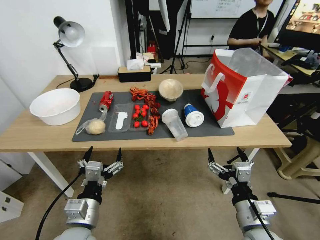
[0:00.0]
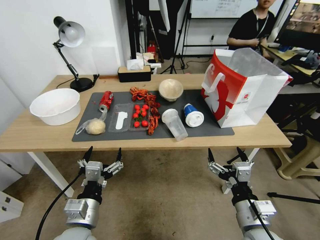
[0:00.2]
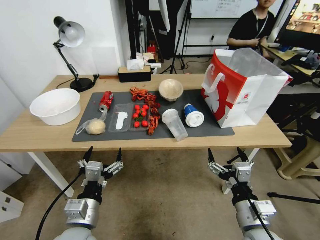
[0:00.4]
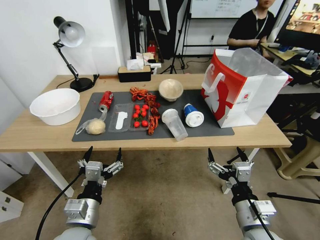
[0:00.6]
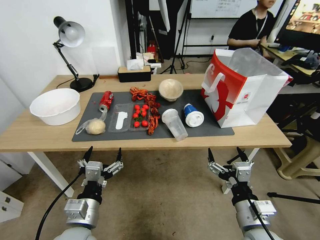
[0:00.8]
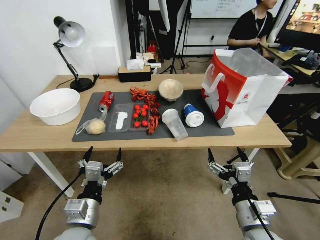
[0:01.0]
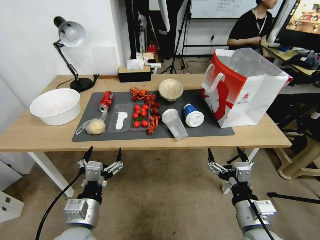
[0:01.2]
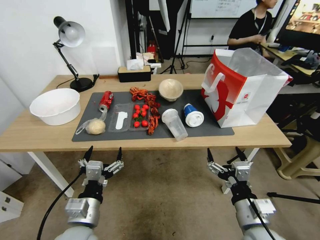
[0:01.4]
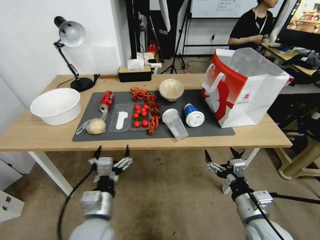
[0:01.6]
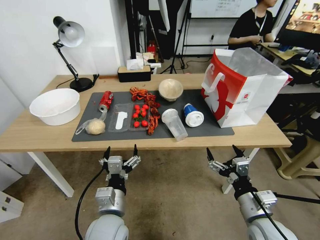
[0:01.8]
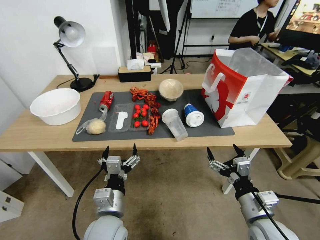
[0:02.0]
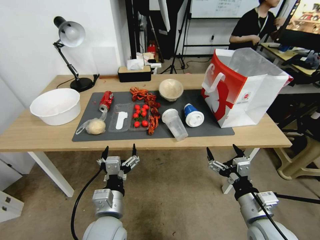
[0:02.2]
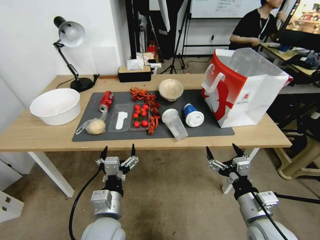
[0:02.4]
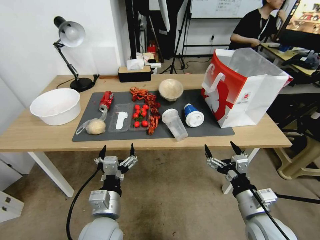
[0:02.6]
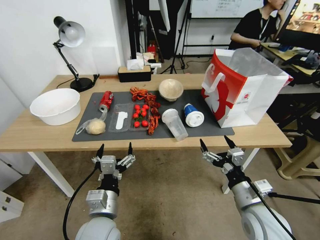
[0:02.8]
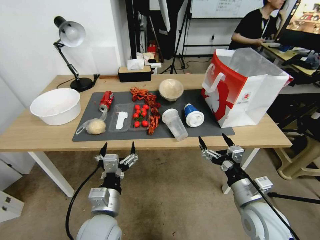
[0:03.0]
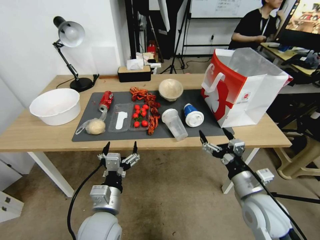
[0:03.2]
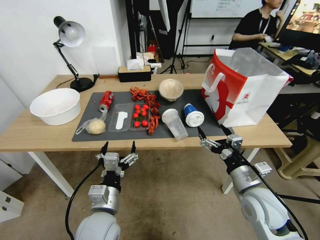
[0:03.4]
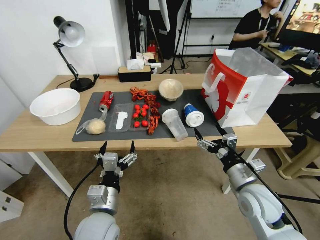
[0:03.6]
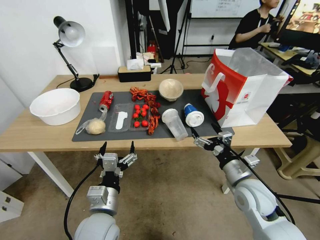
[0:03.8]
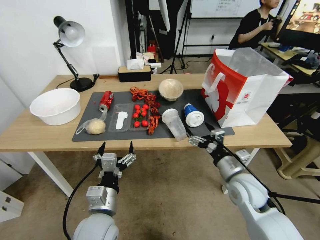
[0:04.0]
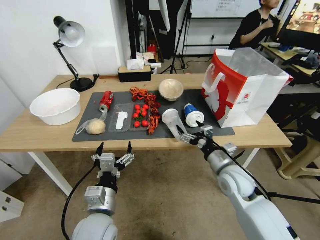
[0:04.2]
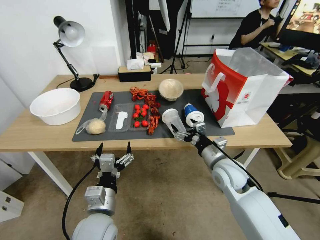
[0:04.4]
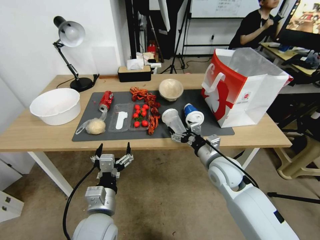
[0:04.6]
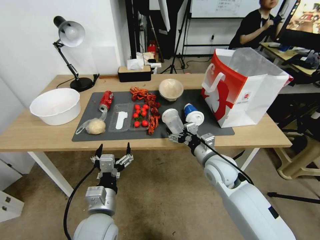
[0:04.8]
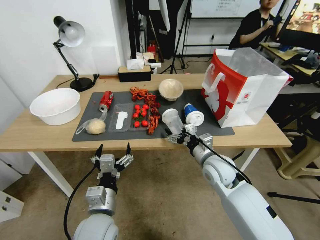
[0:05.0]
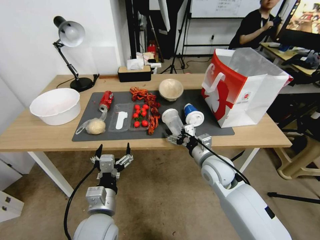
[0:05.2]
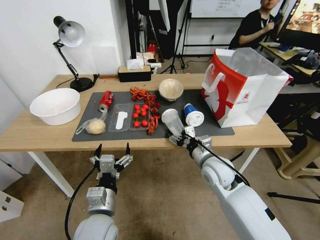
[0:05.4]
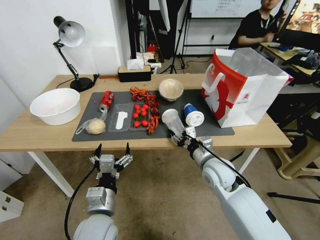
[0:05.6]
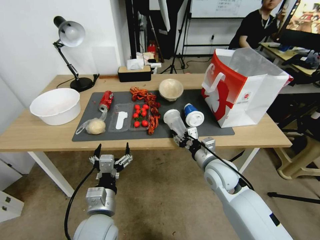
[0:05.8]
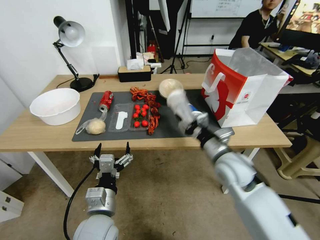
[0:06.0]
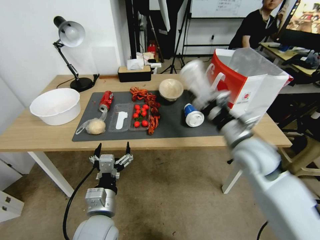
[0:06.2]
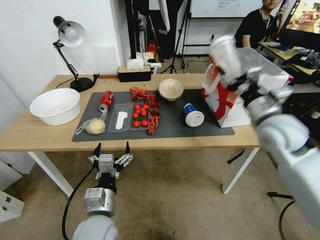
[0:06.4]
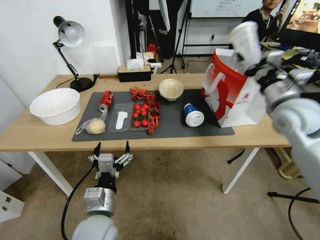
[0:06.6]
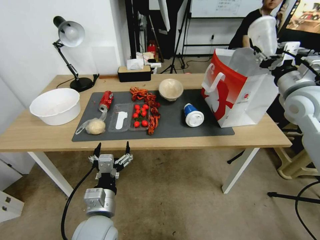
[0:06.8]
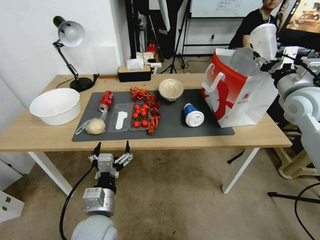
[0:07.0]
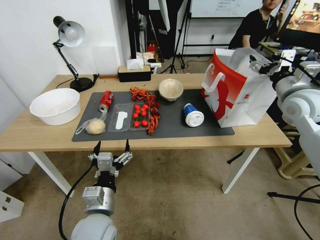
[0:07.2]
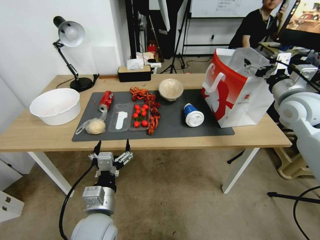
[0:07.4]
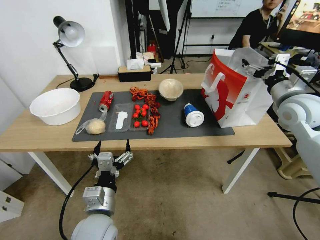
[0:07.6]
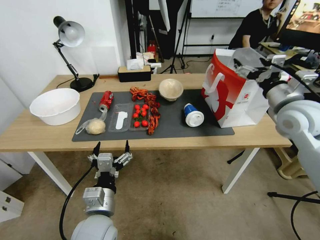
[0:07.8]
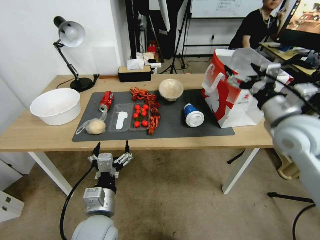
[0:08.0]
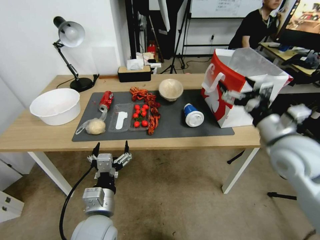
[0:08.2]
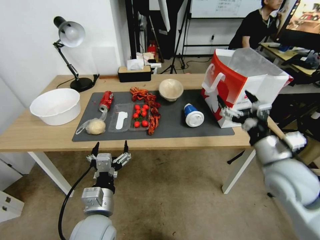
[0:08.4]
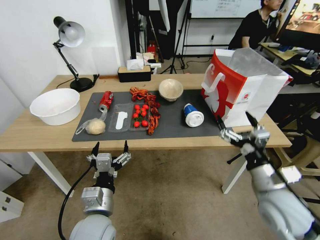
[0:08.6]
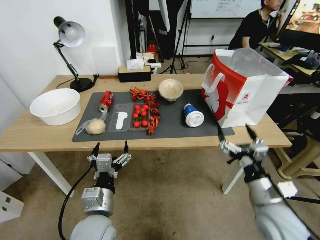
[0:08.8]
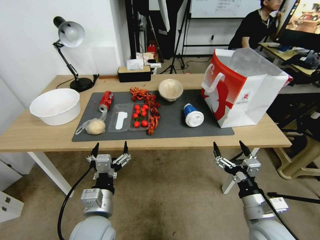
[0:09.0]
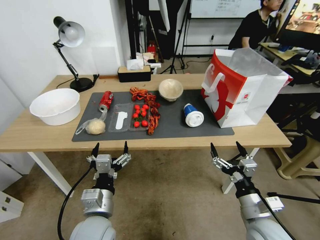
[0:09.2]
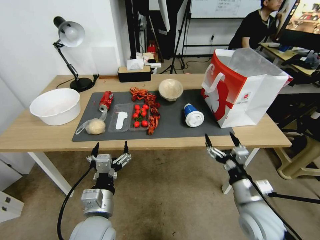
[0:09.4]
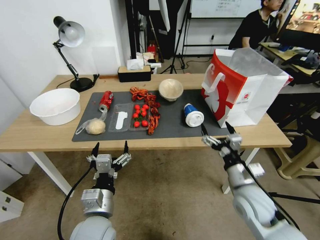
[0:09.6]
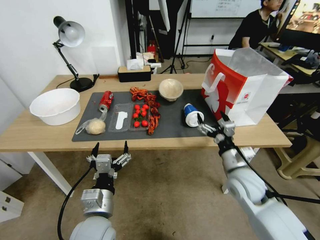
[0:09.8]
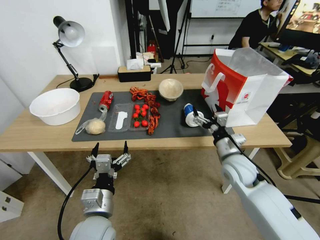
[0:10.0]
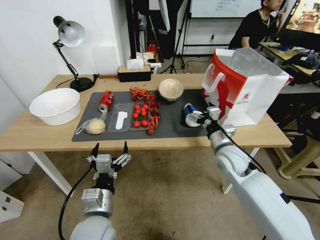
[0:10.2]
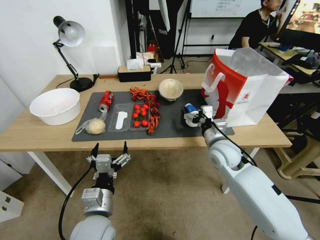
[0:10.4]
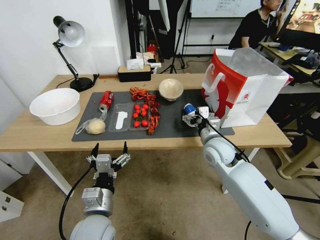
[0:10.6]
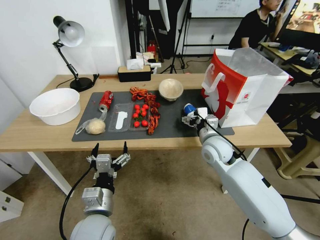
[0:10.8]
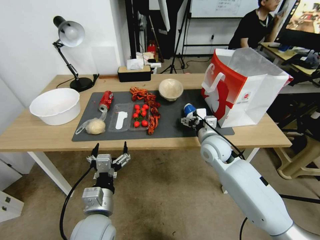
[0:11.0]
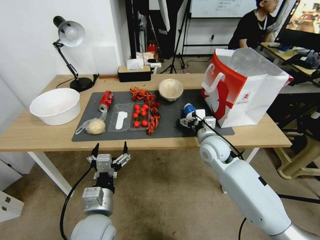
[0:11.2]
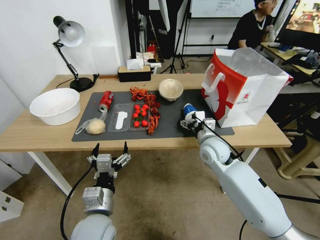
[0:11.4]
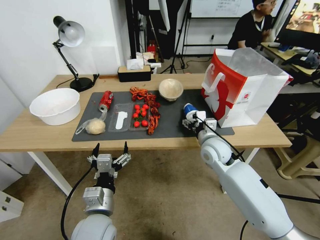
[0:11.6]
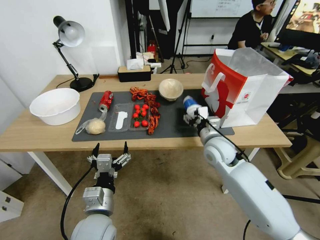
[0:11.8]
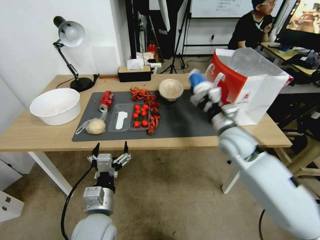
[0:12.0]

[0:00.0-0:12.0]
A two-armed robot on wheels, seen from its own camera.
0:01.6 to 0:03.0: There are only small adjustments of the grippers.
0:03.0 to 0:04.4: The right gripper travels forward by some 15 cm.
0:04.4 to 0:06.0: The right gripper closes its fingers.
0:06.0 to 0:07.6: The right gripper heads to the right, upward and forward, covering about 25 cm, and opens up.
0:07.6 to 0:09.0: The right gripper shifts about 35 cm backward, downward and to the left.
0:09.0 to 0:10.4: The right gripper travels forward by roughly 20 cm.
0:10.4 to 0:12.0: The right gripper shifts roughly 5 cm upward.

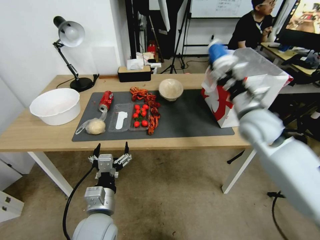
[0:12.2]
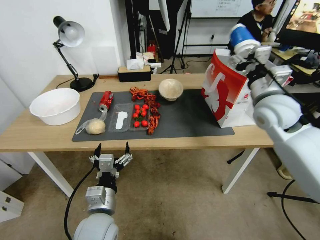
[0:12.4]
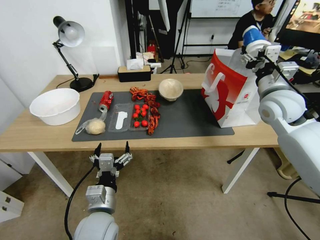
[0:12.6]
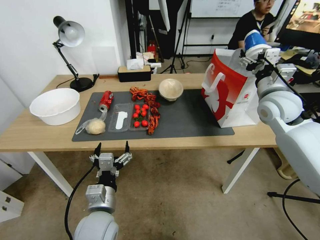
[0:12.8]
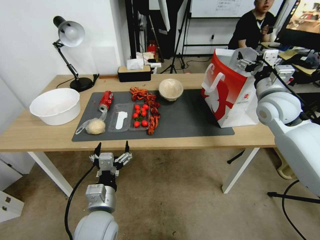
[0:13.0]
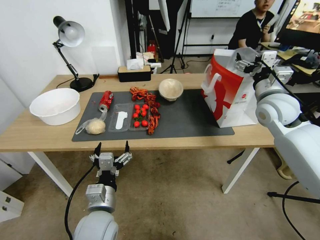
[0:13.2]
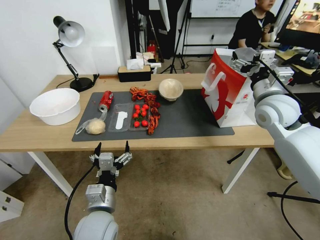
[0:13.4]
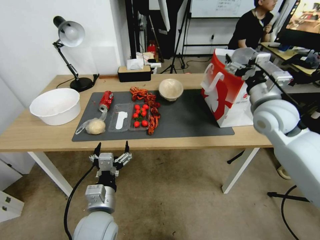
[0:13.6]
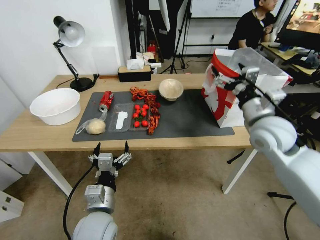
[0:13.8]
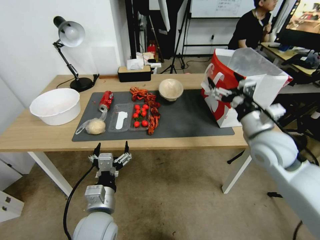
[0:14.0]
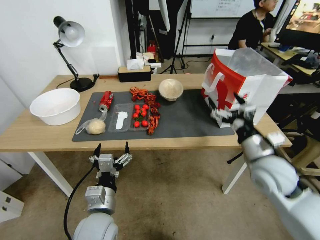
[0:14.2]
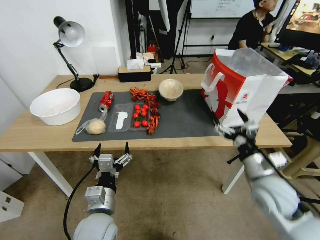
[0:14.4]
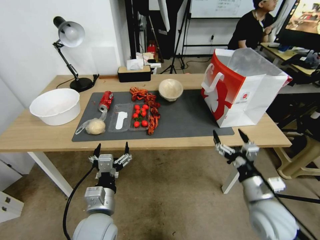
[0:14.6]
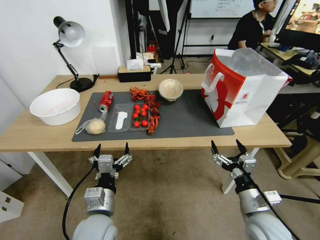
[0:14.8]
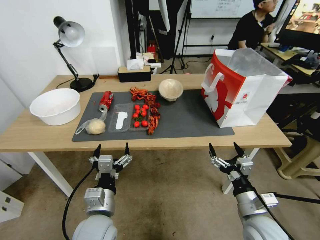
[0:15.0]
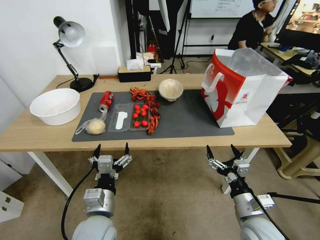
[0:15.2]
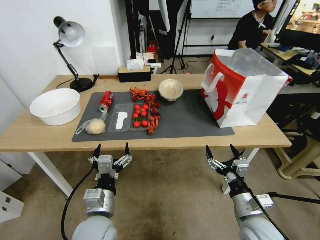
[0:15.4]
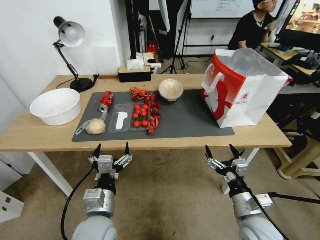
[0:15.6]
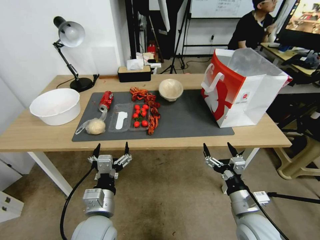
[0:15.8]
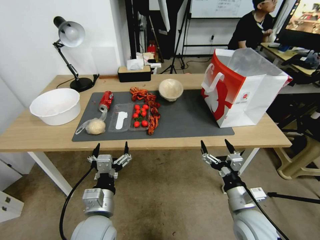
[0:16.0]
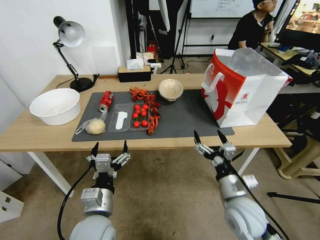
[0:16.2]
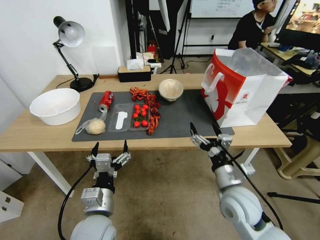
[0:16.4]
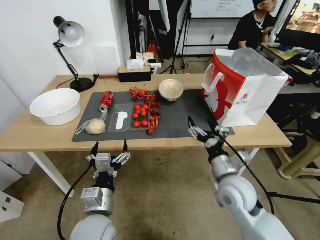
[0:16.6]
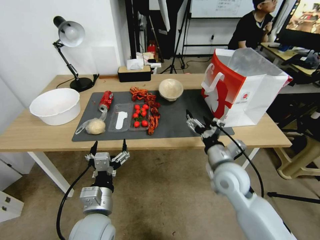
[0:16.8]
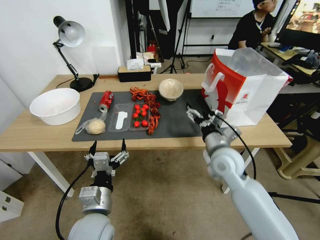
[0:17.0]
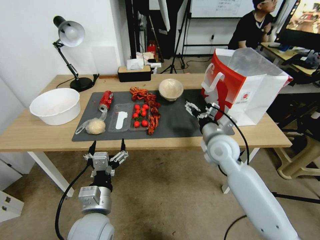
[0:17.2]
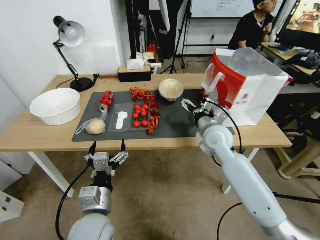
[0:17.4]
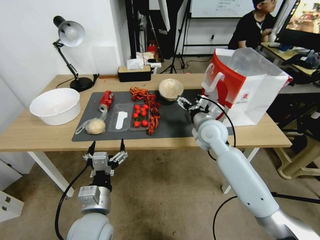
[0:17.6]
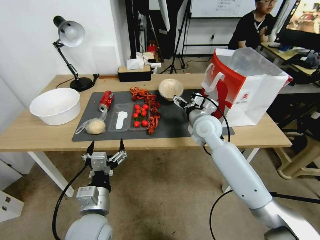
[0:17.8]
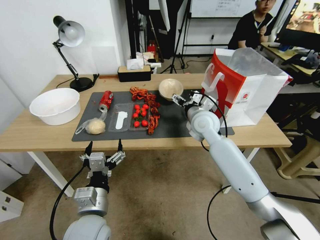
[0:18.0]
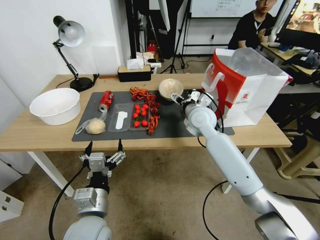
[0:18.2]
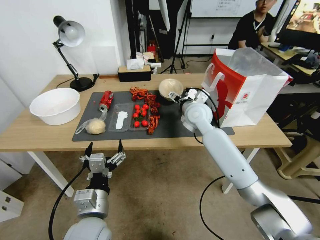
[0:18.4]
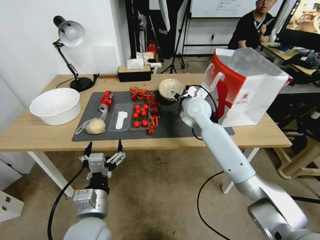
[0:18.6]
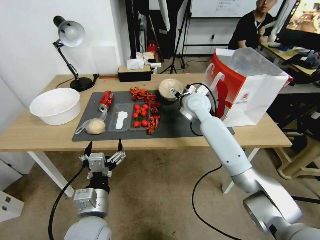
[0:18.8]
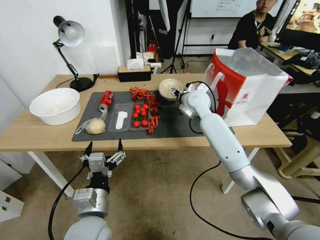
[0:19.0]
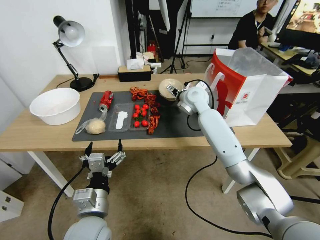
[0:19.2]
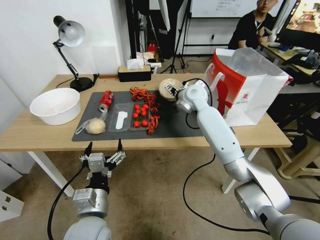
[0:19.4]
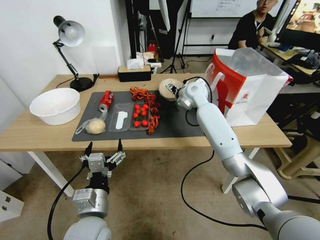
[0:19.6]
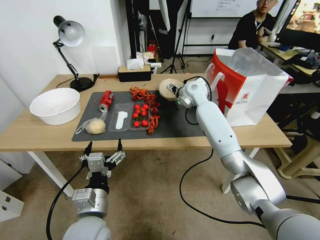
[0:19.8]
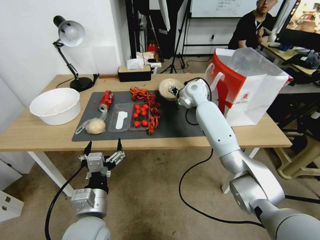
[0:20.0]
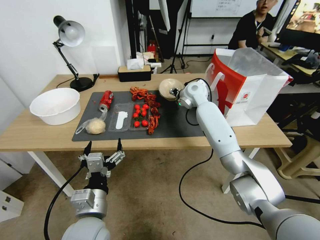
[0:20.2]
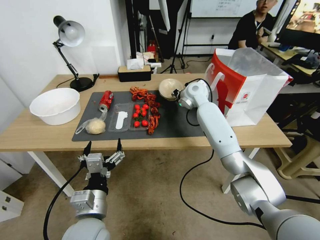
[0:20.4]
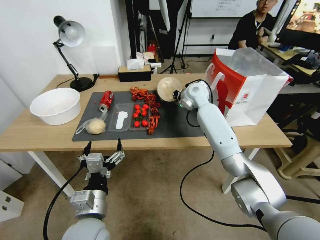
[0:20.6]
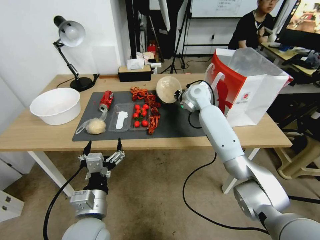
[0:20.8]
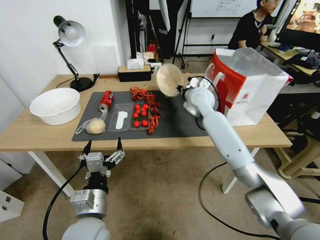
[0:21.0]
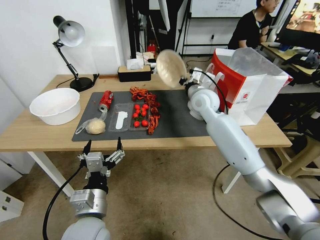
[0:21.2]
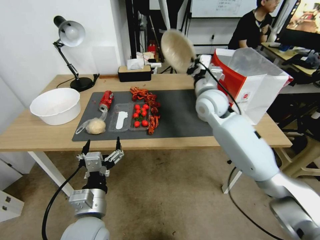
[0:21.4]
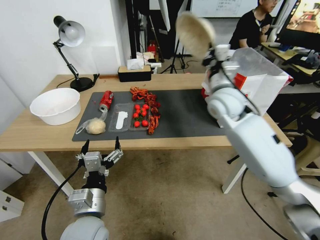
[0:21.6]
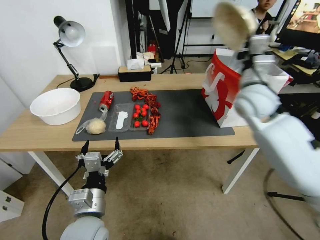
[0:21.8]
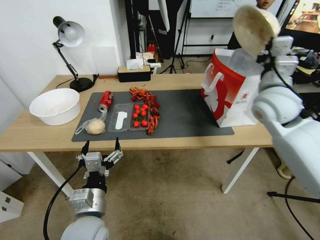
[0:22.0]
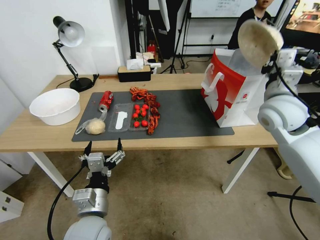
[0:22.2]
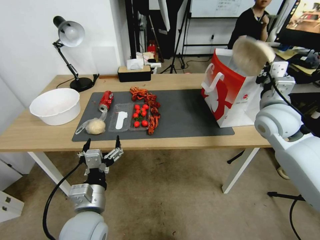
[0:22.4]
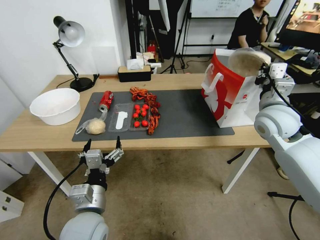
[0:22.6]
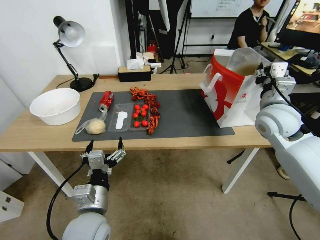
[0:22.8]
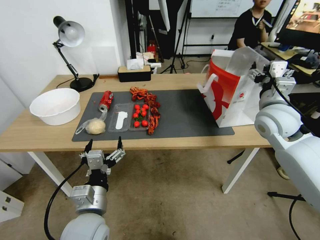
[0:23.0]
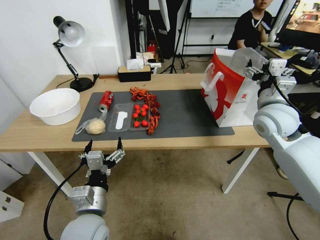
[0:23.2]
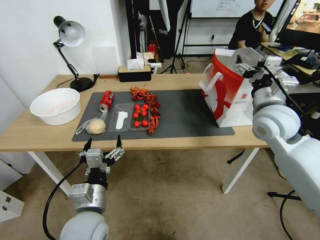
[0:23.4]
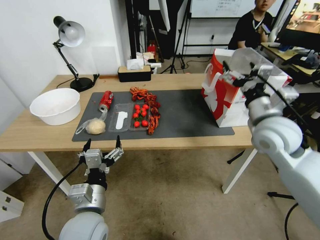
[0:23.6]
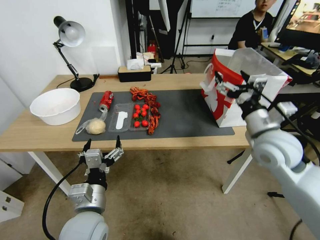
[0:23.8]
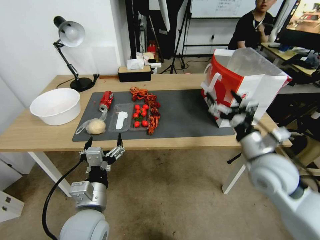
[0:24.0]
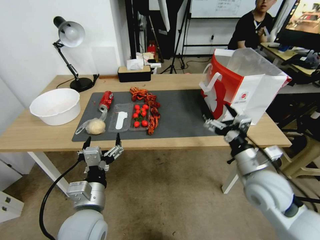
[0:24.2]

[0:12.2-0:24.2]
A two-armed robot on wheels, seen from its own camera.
0:12.2 to 0:13.8: The right gripper moves to the right, about 5 cm.
0:13.8 to 0:15.2: The right gripper travels backward and downward by some 35 cm.
0:15.2 to 0:16.6: The right gripper changes place by some 5 cm.
0:16.6 to 0:18.2: The right gripper is displaced forward and upward by approximately 30 cm.
0:18.2 to 0:19.8: The right gripper is displaced forward by some 10 cm.
0:19.8 to 0:21.2: The right gripper is displaced backward by approximately 5 cm, and closes its fingers.
0:21.2 to 0:22.6: The right gripper travels to the right and backward by approximately 20 cm.
0:22.6 to 0:24.2: The right gripper moves backward and downward, roughly 20 cm, and opens its fingers.
